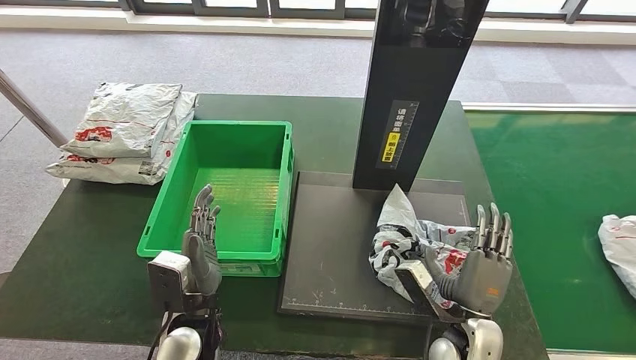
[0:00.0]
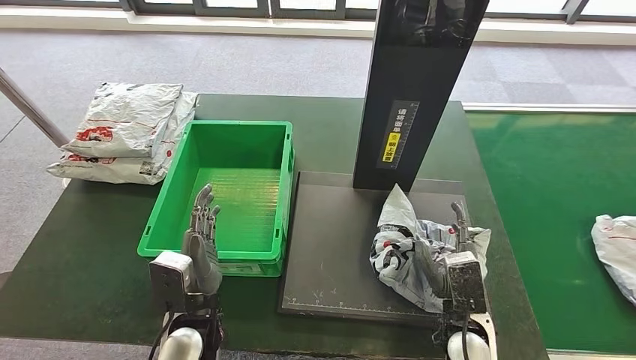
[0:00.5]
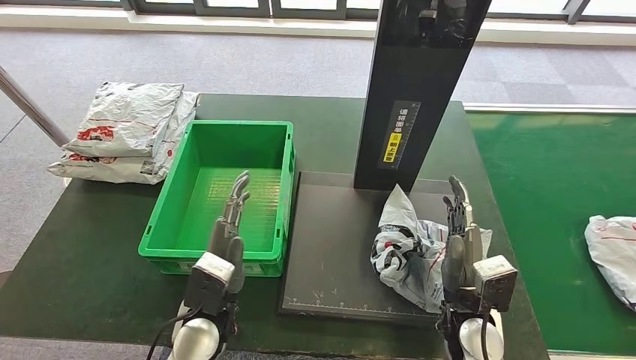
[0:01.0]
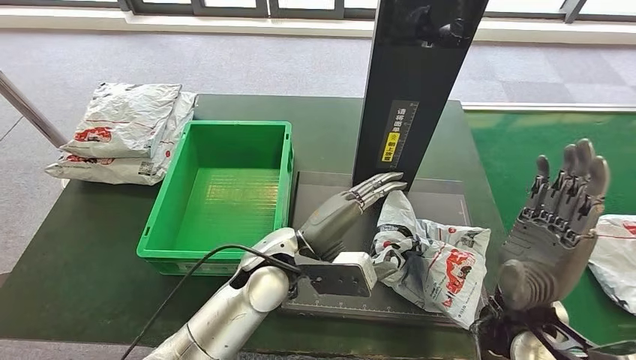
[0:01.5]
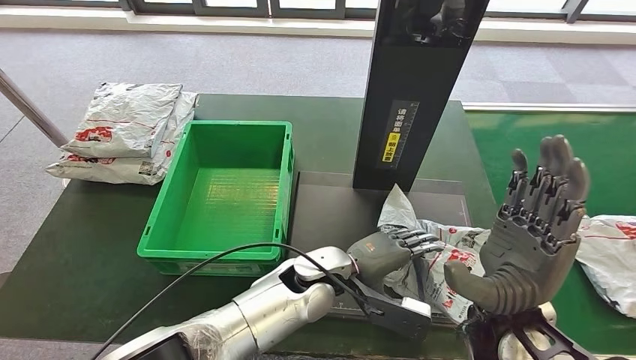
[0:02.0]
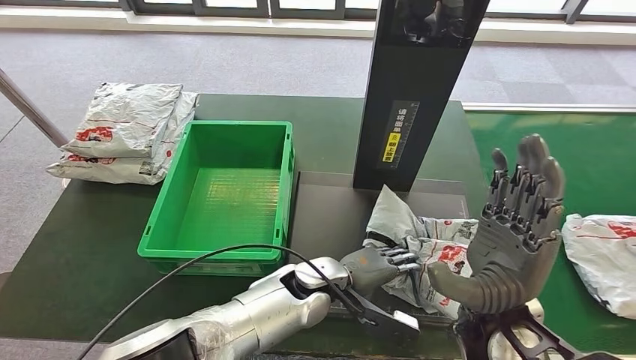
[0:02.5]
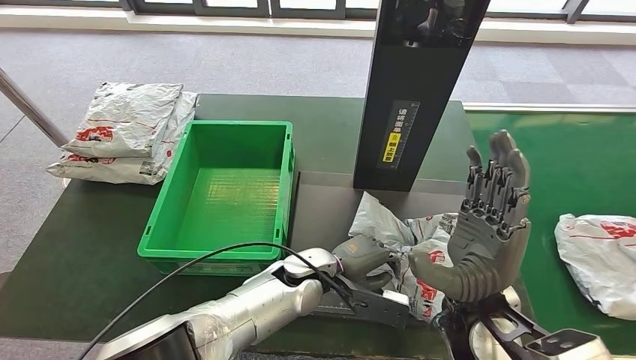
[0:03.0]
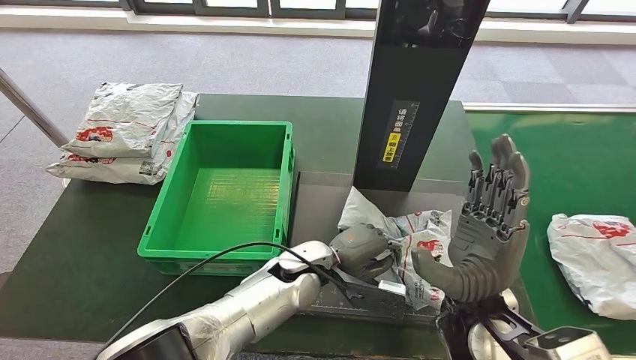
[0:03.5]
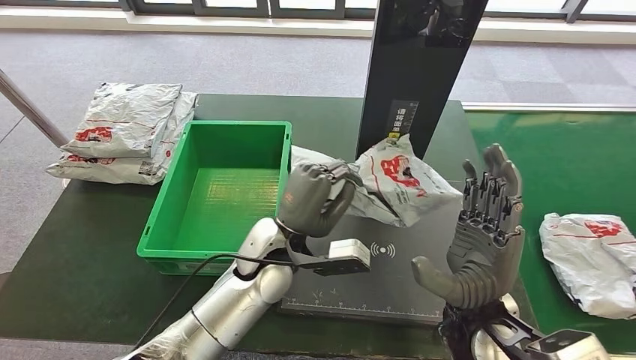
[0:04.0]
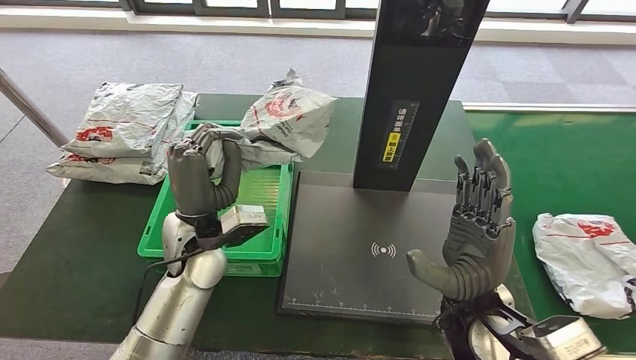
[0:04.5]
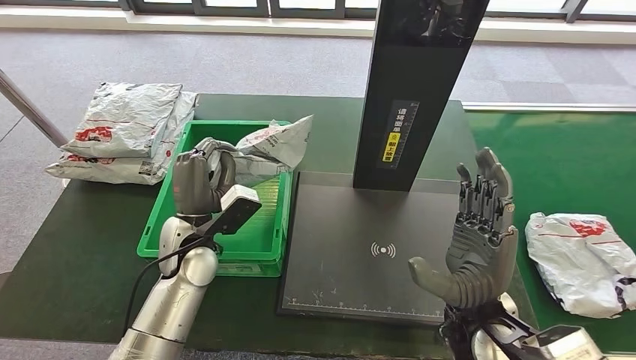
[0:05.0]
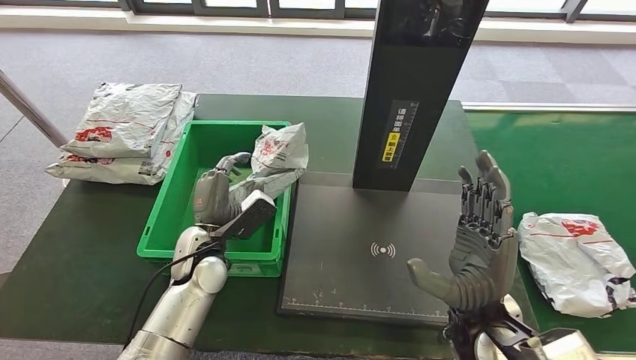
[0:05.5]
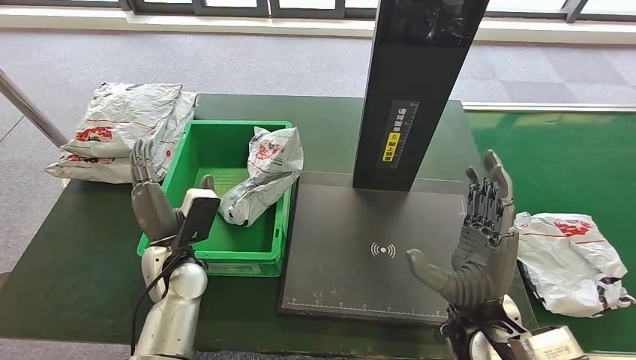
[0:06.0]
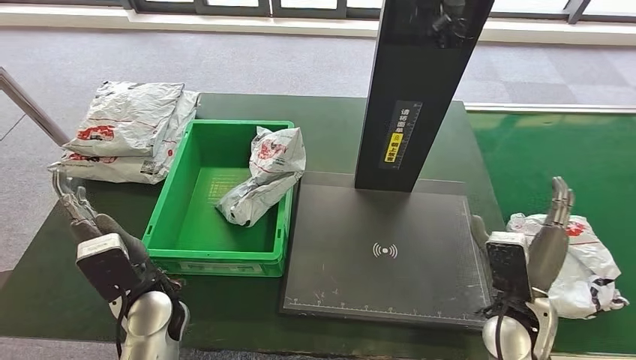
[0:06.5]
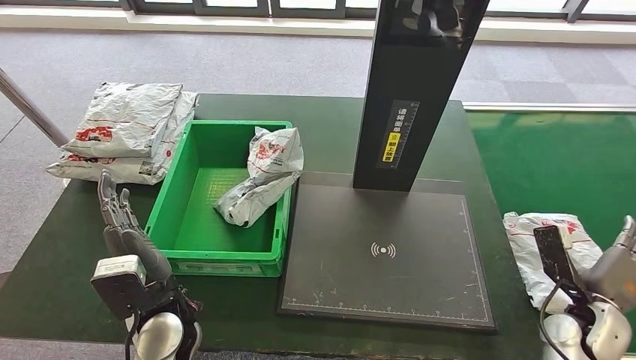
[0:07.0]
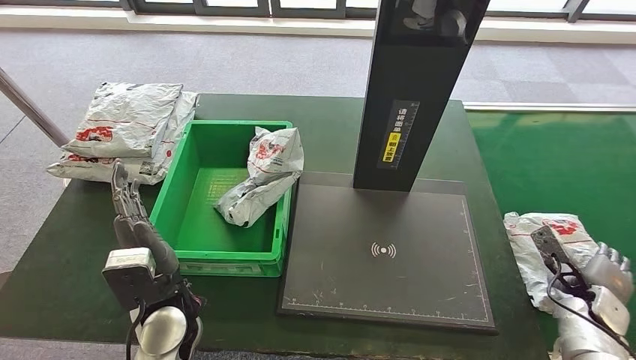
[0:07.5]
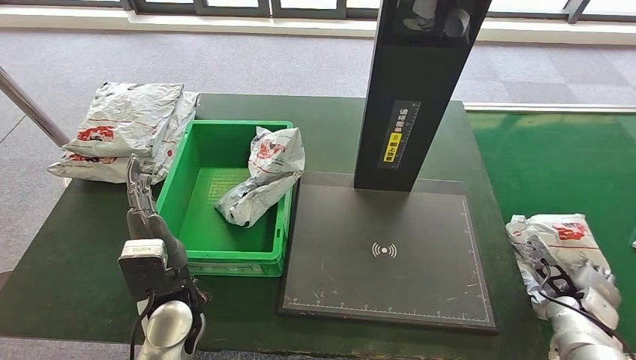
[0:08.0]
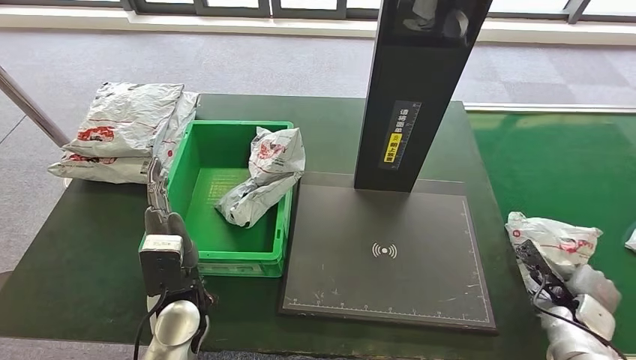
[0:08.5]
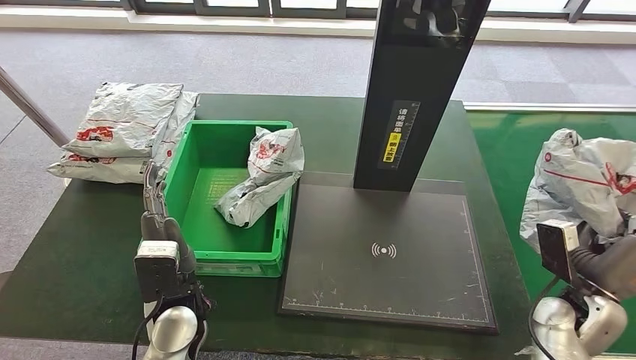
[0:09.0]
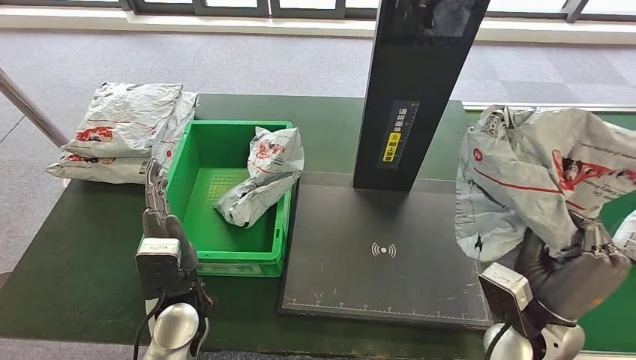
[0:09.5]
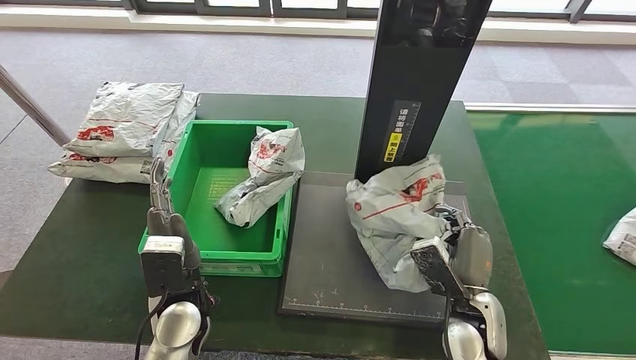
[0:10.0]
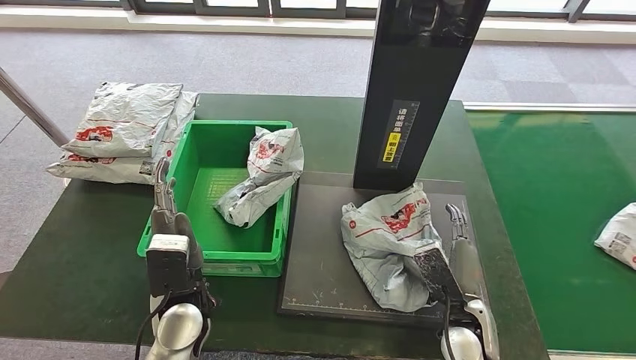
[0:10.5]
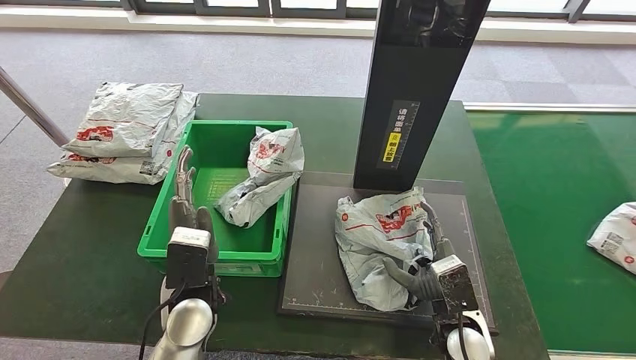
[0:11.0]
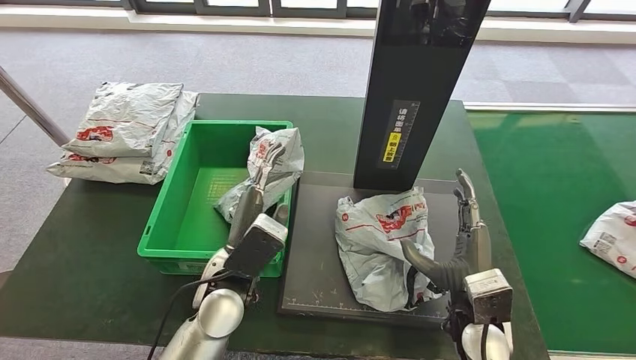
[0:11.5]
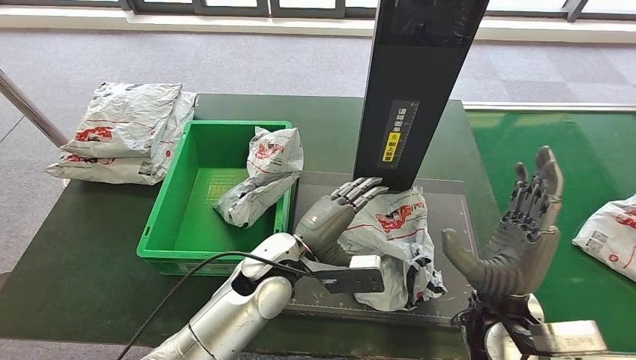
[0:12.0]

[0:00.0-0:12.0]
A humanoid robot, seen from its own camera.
Step, 0:02.0 to 0:04.5: Pick up the parcel from the inbound machine.
Step, 0:05.0 to 0:07.0: Put the parcel inside the courier box.
Step, 0:07.5 to 0:09.5: Pick up the parcel from the conveyor belt.
Step, 0:10.0 to 0:11.5: Place the parcel onto the inbound machine.
0:00.0 to 0:02.0: The right hand shifts about 15 cm upward. The left hand shifts about 20 cm to the right and forward.
0:06.0 to 0:08.0: The left hand travels backward by about 5 cm, while the right hand heads to the right and downward, covering approximately 30 cm.
0:08.0 to 0:10.0: The right hand heads to the left, covering roughly 25 cm.

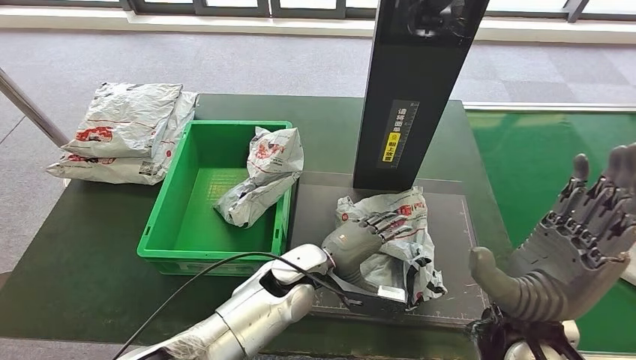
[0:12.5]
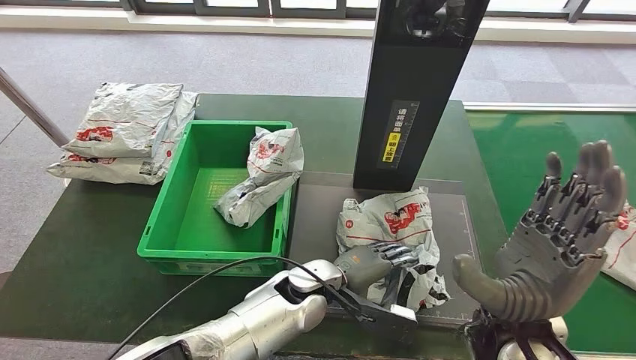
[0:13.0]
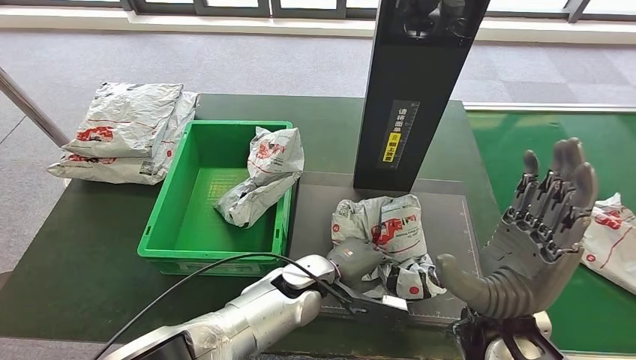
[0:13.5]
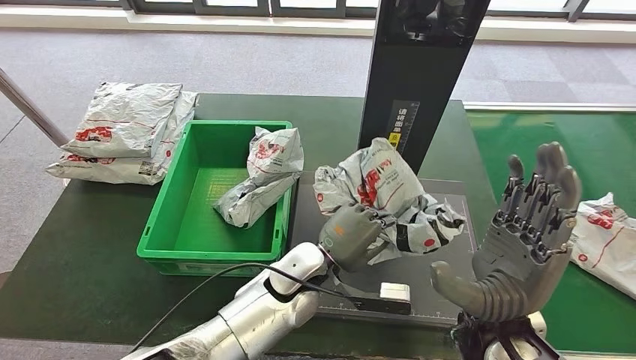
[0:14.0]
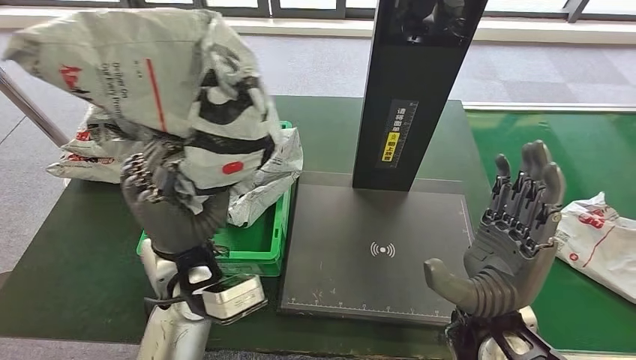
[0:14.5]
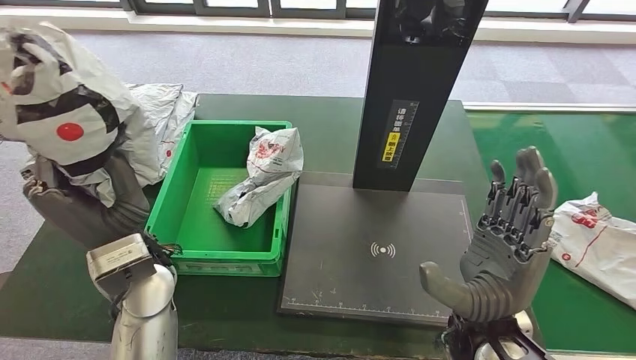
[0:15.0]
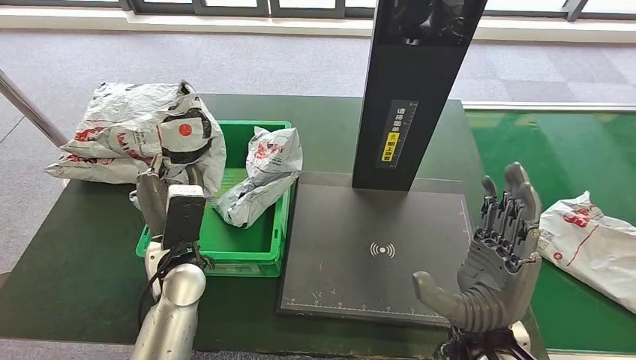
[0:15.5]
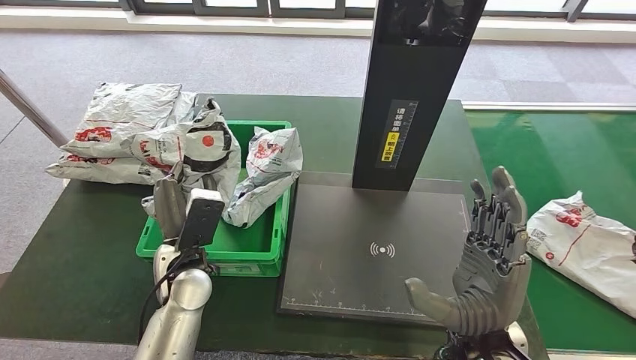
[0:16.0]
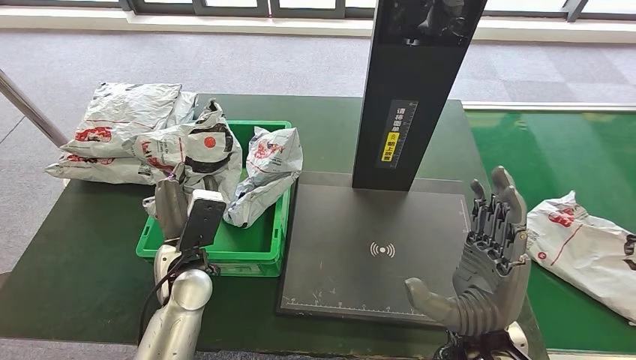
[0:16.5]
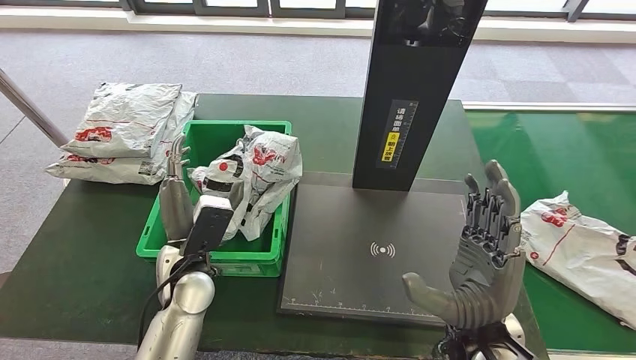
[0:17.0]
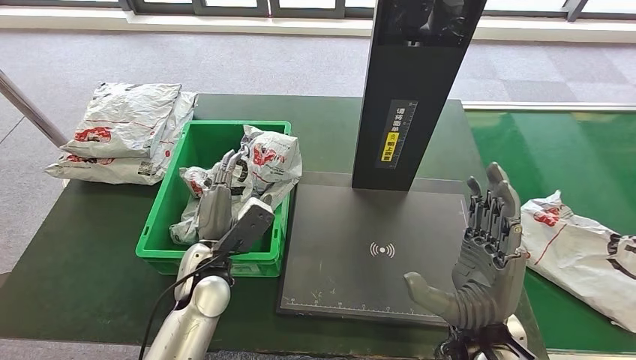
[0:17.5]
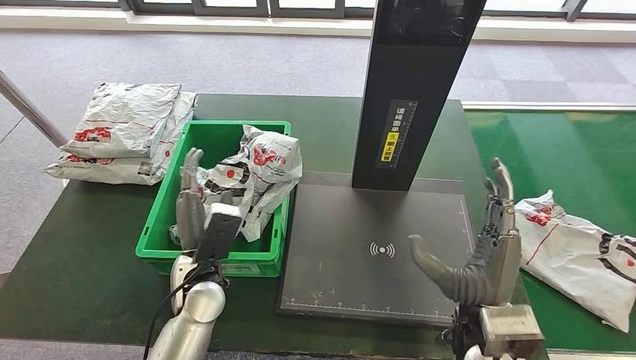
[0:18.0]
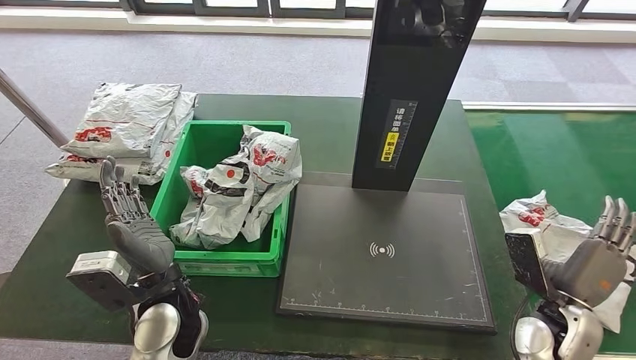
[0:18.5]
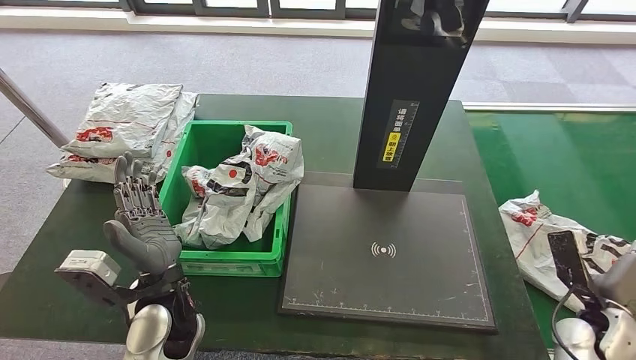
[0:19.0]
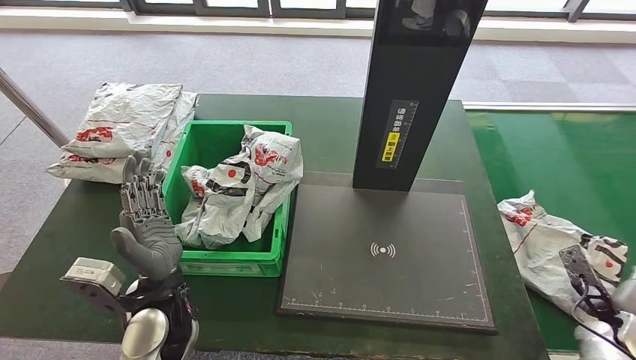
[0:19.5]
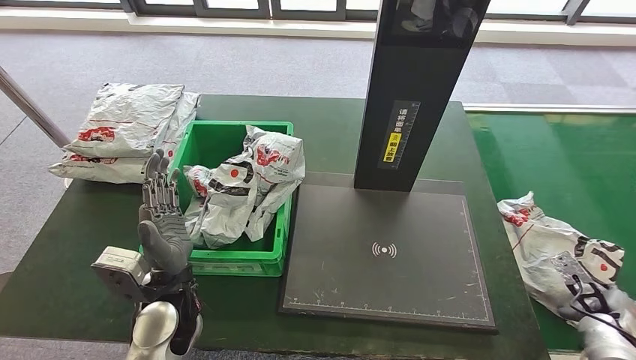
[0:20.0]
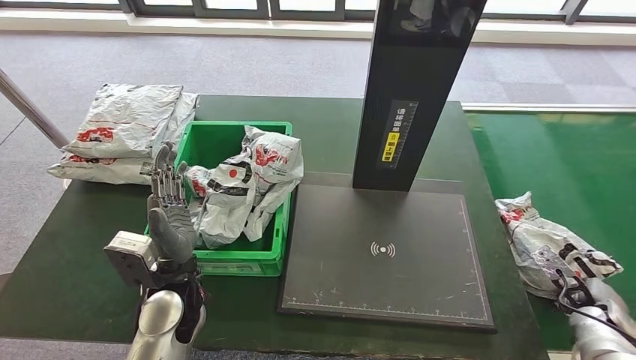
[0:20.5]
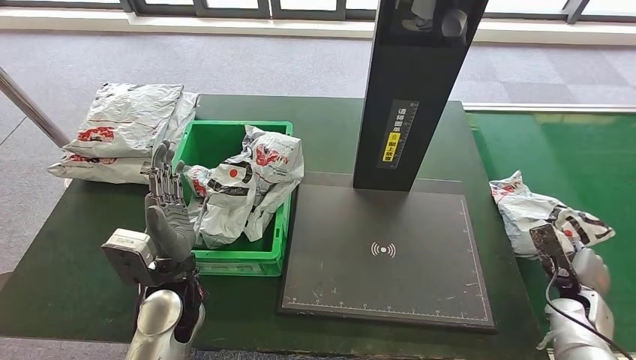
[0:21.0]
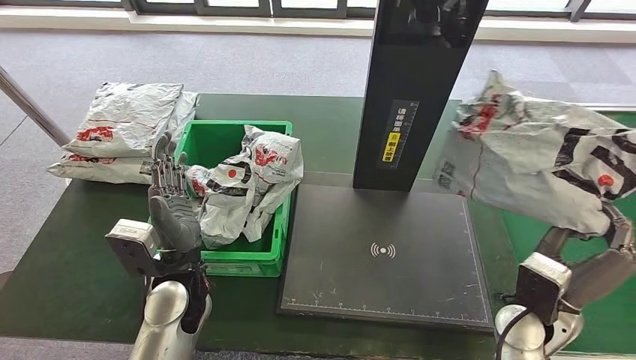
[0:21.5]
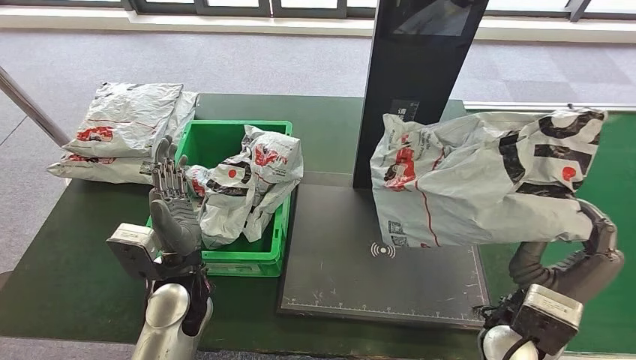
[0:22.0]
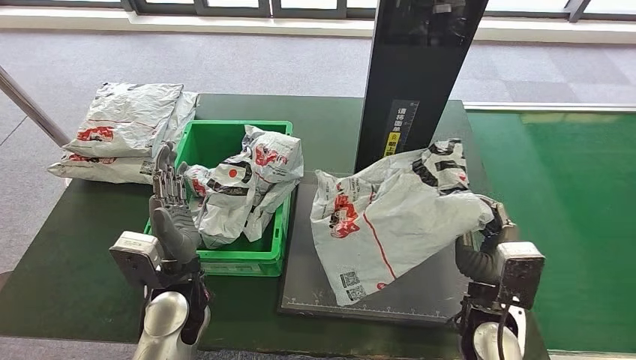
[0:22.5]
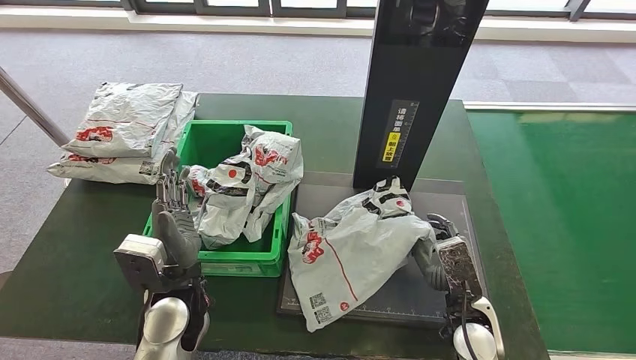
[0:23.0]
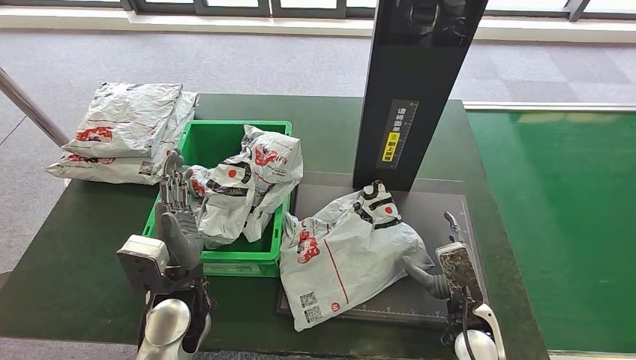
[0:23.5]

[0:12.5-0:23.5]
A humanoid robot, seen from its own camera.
Step, 0:12.5 to 0:14.0: Pick up the parcel from the inbound machine.
Step, 0:14.5 to 0:18.0: Place the parcel into the delivery box.
Step, 0:18.5 to 0:21.0: Pick up the parcel from the conveyor belt.
